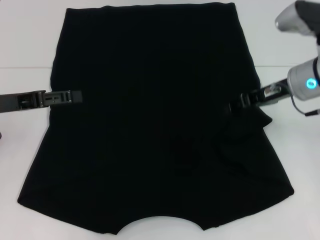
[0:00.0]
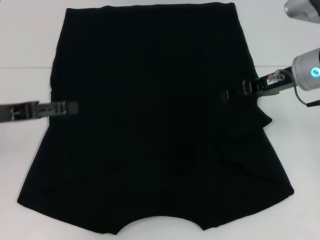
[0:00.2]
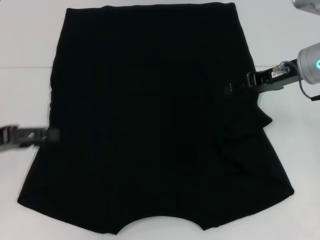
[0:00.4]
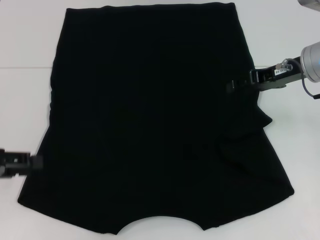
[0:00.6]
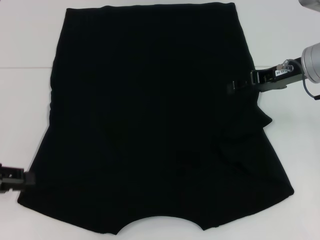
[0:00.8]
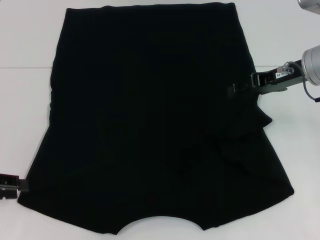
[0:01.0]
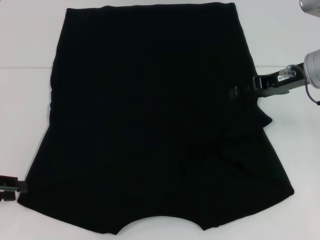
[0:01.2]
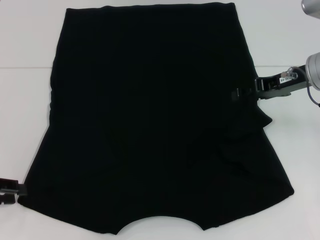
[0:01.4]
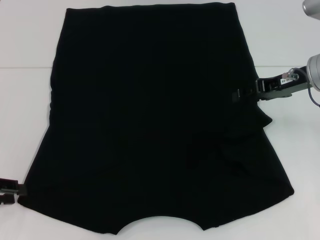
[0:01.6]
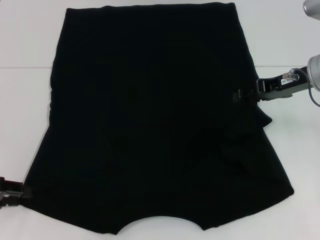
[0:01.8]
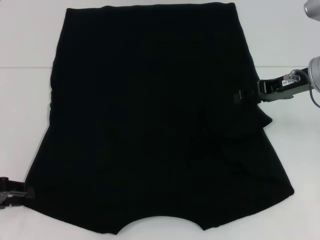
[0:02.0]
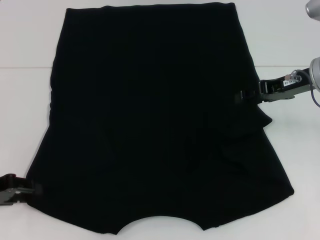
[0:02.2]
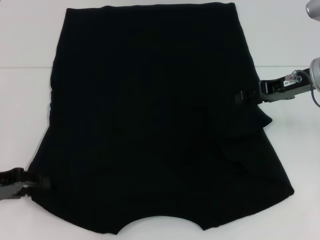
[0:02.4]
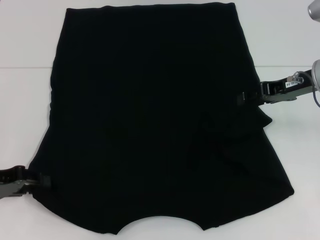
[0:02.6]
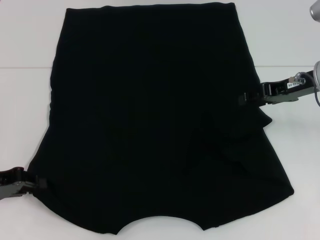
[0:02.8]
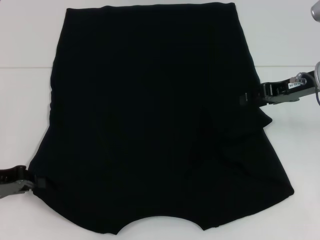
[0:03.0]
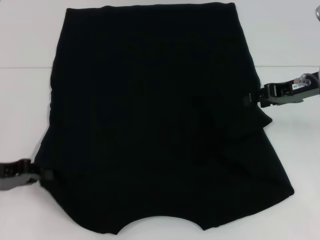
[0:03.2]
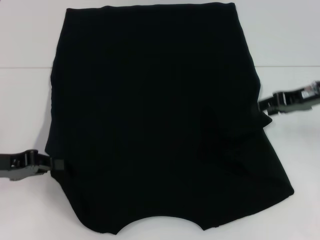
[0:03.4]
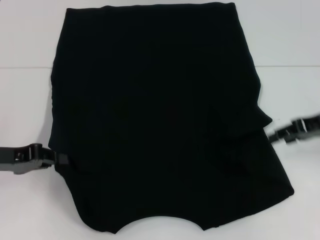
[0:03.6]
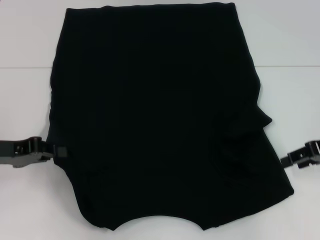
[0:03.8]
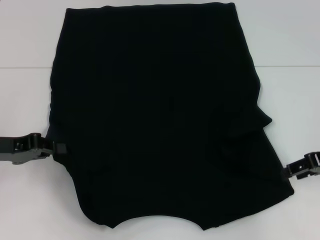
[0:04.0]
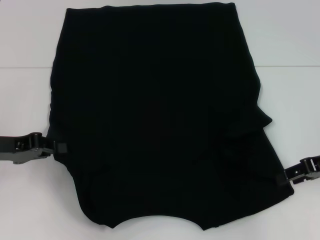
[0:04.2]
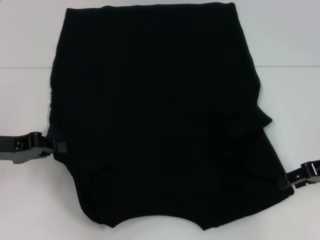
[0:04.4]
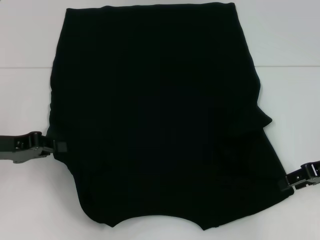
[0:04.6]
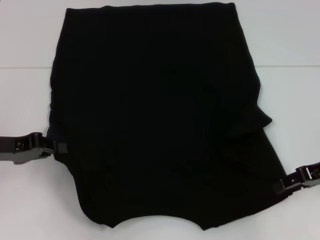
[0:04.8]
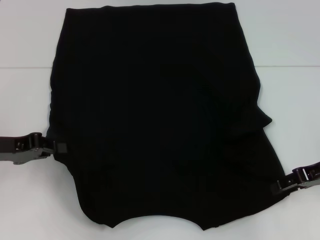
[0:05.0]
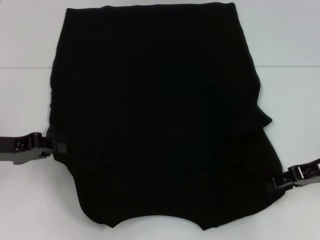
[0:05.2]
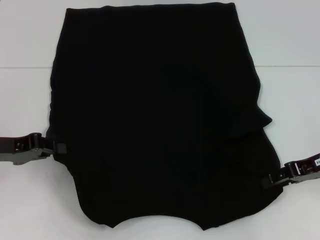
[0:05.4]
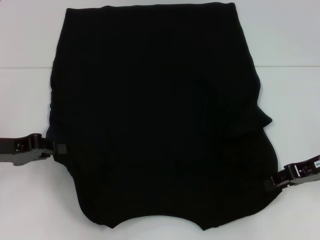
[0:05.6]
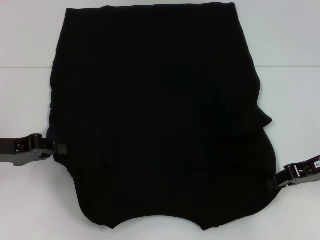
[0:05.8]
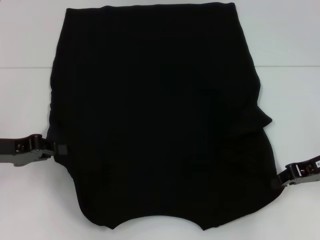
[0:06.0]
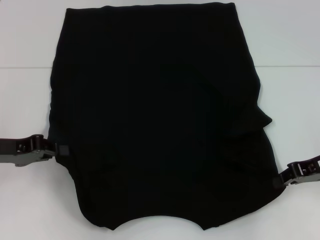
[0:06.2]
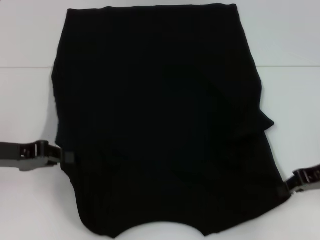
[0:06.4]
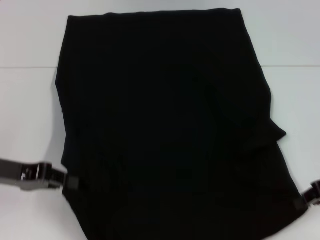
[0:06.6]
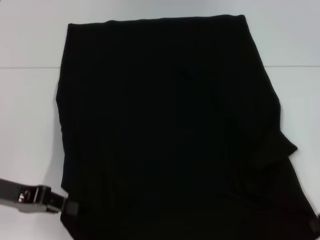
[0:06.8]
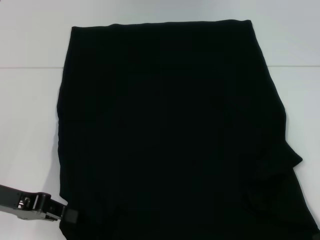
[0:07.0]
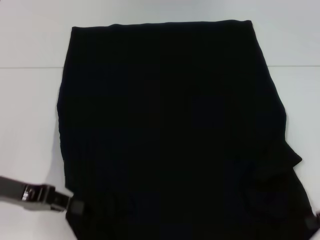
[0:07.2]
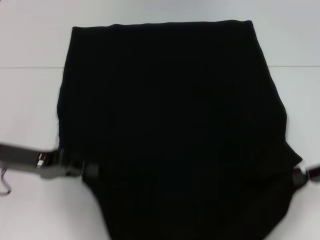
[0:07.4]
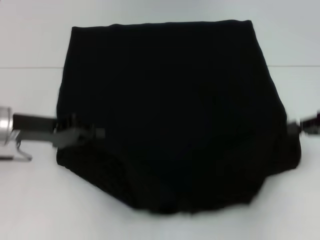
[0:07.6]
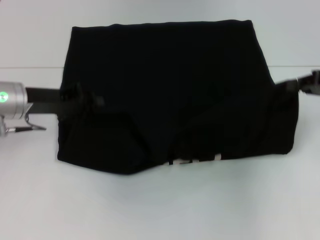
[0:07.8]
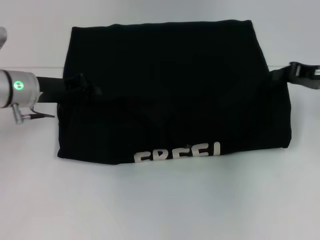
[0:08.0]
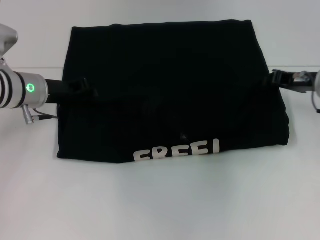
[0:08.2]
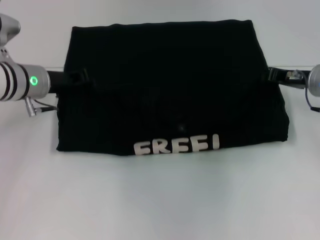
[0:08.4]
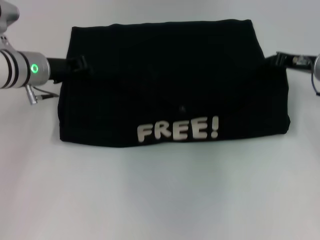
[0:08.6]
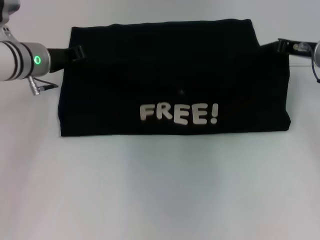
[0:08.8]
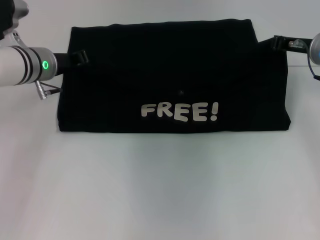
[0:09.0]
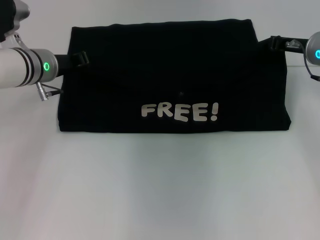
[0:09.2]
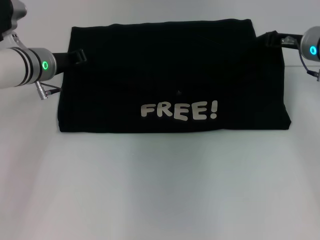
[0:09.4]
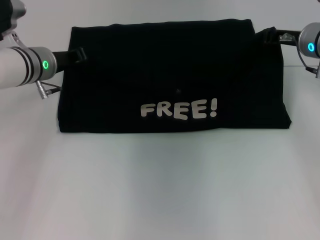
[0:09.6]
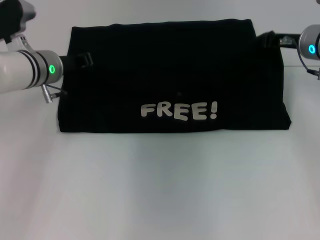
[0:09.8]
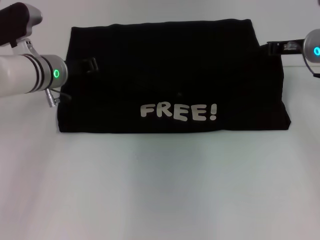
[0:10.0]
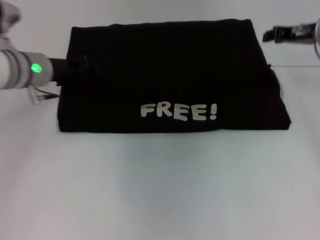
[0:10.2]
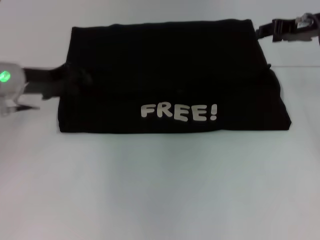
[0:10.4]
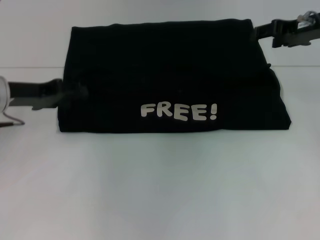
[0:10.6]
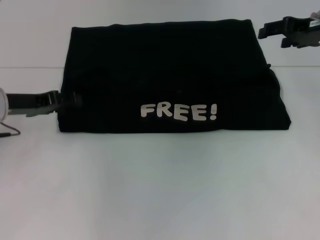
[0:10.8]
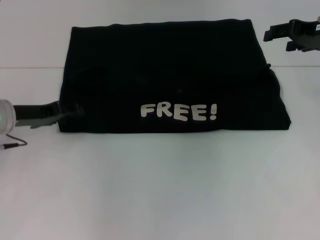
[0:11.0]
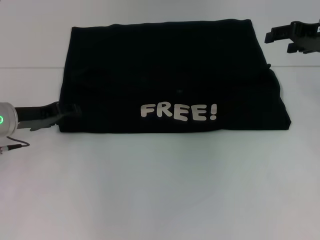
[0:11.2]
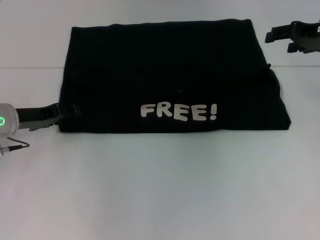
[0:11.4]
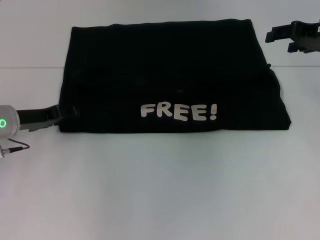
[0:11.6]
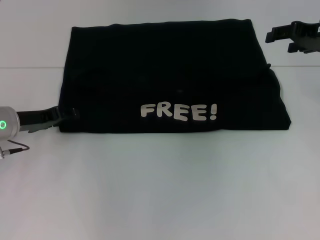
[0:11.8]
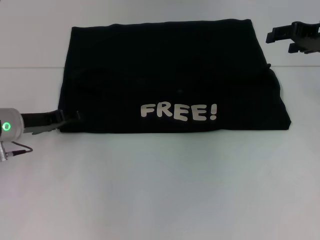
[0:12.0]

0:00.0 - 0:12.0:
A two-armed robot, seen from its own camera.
Step, 0:00.4 - 0:03.2: Grab the bottom left corner with your left hand.
Step, 0:03.4 - 0:06.2: Grab the bottom right corner with your right hand.
Step, 0:06.4 - 0:10.0: Fold the clothes with your left hand.
Step, 0:06.4 - 0:10.0: Fold the clothes with your right hand.
0:00.0 - 0:01.6: The right gripper opens. Meanwhile the left gripper travels backward, to the left and downward by about 10 cm.
0:01.6 - 0:03.0: The grippers stay close to where they were, moving slightly.
0:03.0 - 0:04.4: The right gripper travels backward and to the right by approximately 10 cm.
0:04.4 - 0:06.0: The grippers move only a little.
0:06.0 - 0:07.6: The left gripper moves to the right, some 5 cm, while the right gripper travels backward and back again, approximately 10 cm each way.
0:07.6 - 0:09.0: The right gripper goes approximately 15 cm forward and to the left. The left gripper heads forward and to the right, covering about 10 cm.
0:09.0 - 0:10.4: The right gripper is displaced upward by about 5 cm, and opens up. Meanwhile the left gripper goes roughly 5 cm to the left.
0:10.4 - 0:12.0: The left gripper is displaced downward by roughly 5 cm. The right gripper opens.

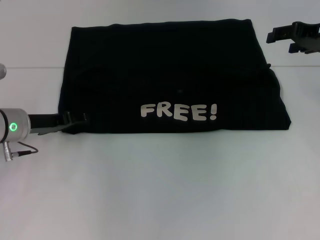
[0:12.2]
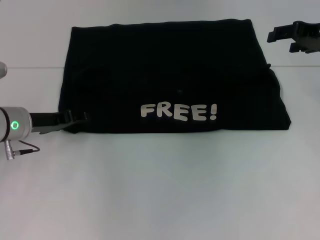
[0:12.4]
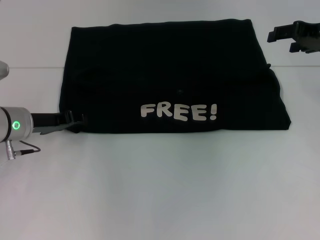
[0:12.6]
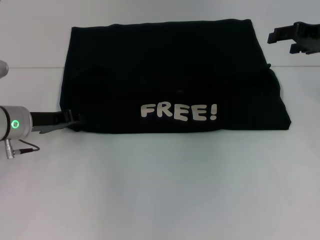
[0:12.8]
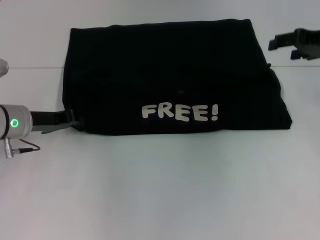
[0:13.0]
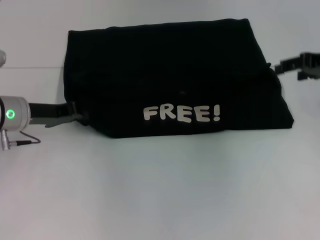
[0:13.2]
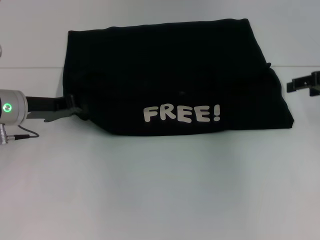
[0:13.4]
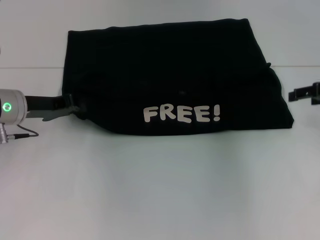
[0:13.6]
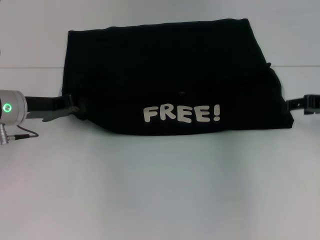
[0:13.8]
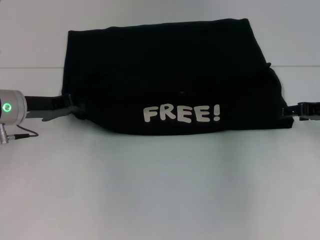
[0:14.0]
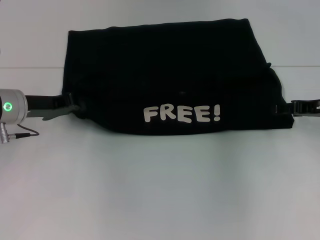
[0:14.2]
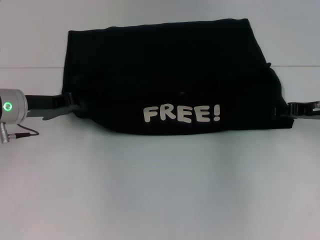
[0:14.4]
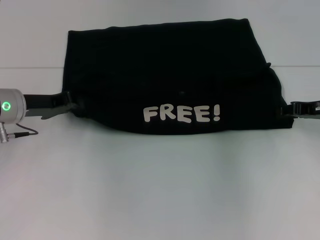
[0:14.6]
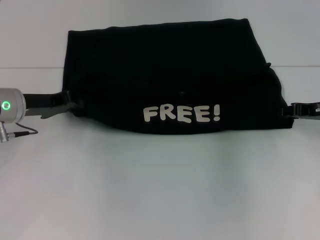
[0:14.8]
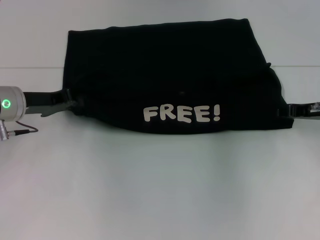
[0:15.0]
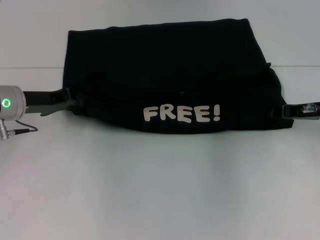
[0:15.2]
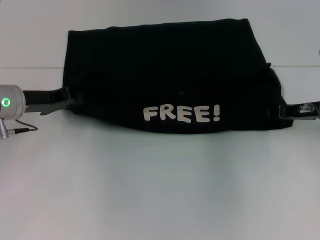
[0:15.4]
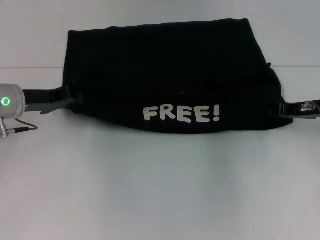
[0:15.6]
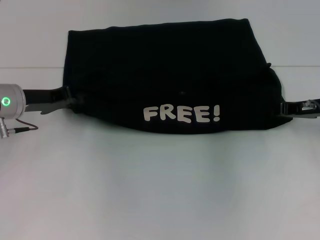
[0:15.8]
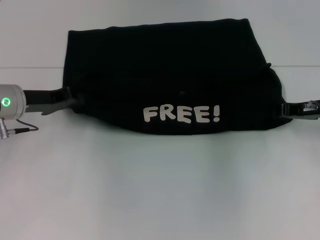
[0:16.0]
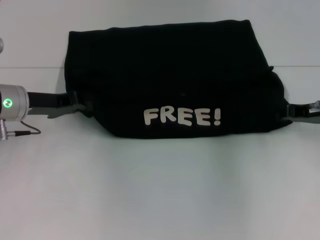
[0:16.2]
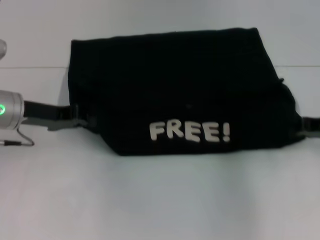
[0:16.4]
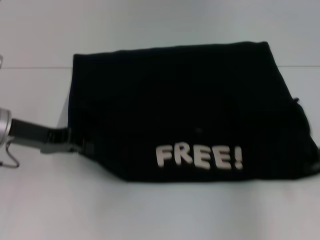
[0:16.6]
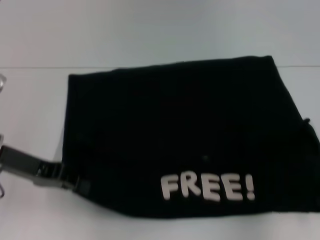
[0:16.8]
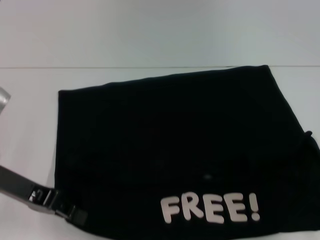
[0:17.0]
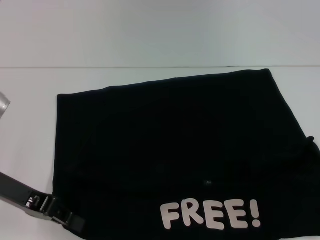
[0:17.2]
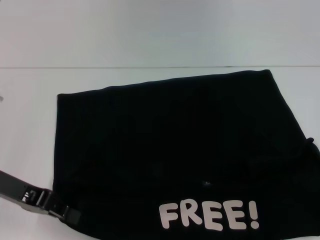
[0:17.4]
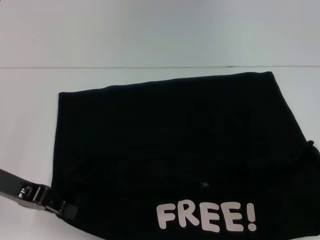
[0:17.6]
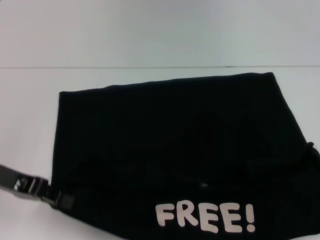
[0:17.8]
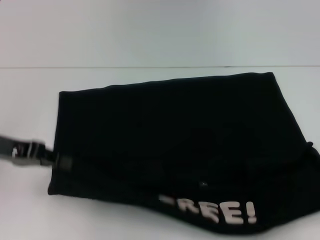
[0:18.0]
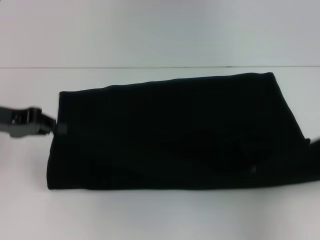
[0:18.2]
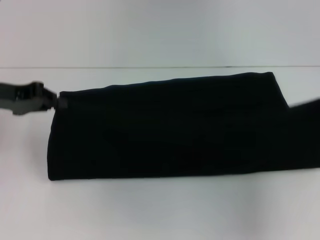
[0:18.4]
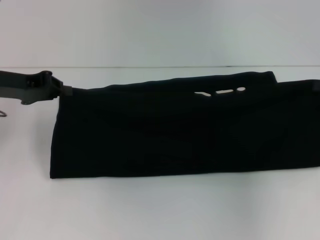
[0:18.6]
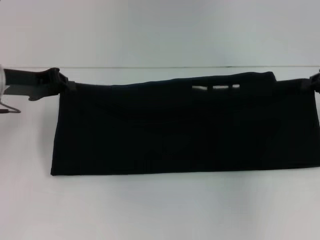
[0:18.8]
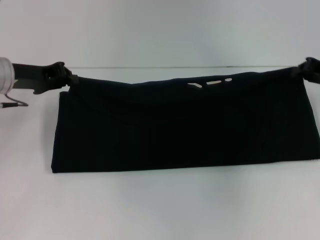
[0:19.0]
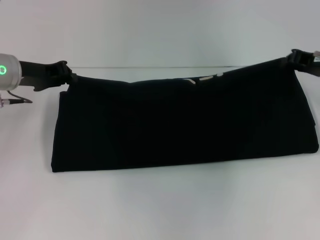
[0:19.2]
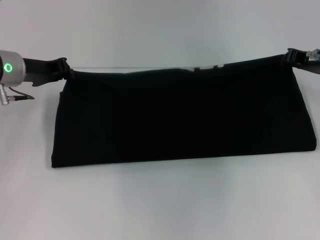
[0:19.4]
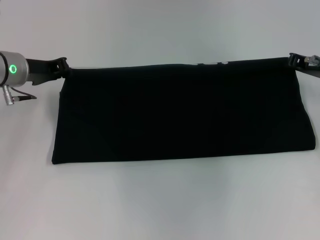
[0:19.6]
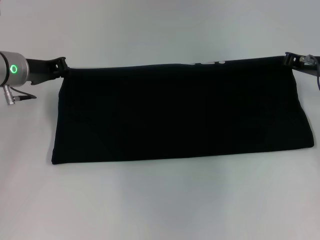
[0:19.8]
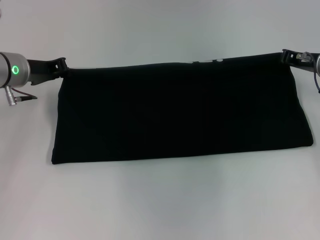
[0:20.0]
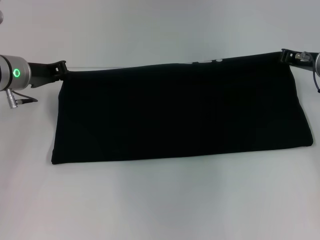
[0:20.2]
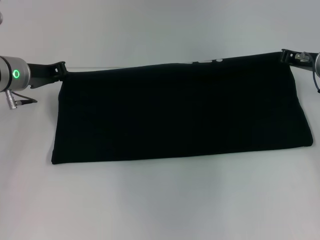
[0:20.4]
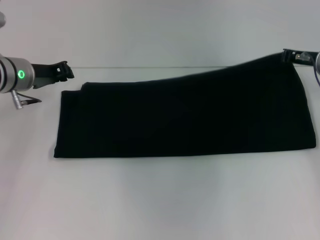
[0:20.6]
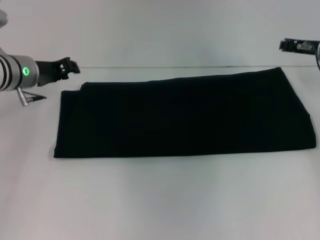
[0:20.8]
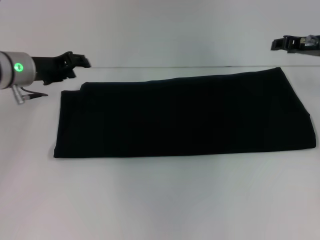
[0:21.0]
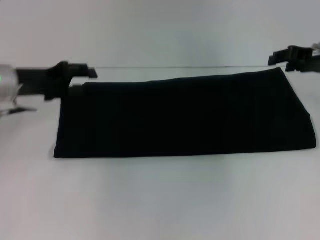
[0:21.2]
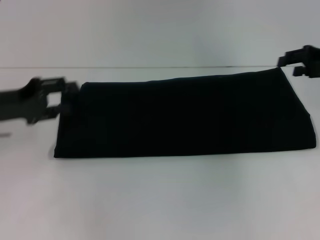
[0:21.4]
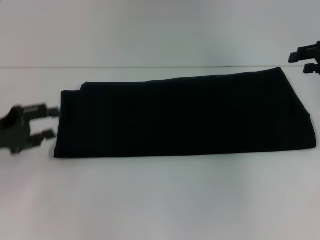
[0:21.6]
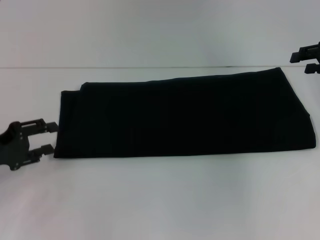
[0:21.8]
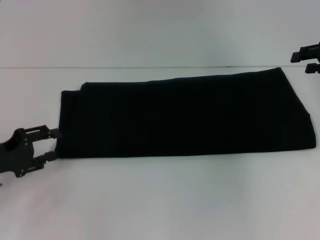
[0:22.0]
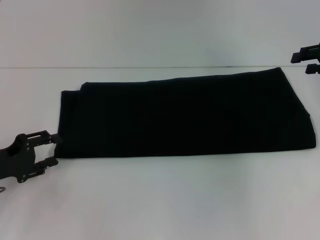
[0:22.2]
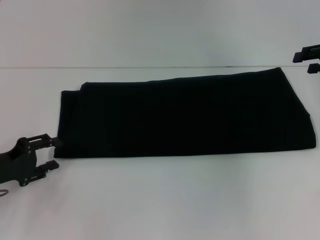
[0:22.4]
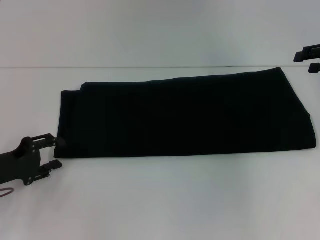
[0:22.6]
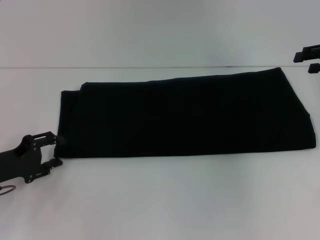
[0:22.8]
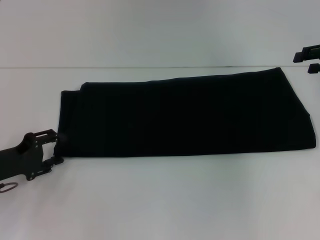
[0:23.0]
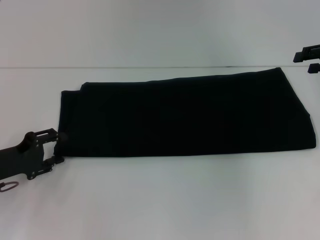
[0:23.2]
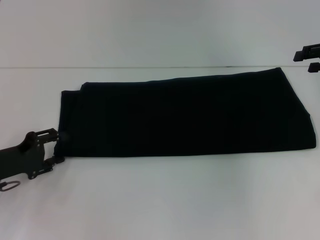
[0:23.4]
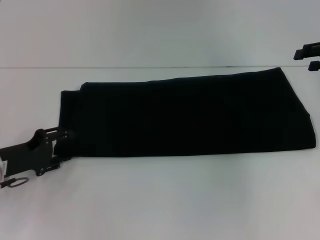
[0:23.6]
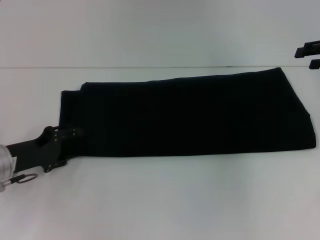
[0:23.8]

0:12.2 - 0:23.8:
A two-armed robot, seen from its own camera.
Step, 0:12.2 - 0:17.2: Pull the clothes with your left hand.
Step, 0:12.2 - 0:17.2: Pull the clothes with your right hand.
Step, 0:17.4 - 0:21.0: Fold the clothes with your right hand.
0:12.2 - 0:13.6: The right gripper goes roughly 5 cm downward. Meanwhile the left gripper closes up.
0:13.6 - 0:15.0: The right gripper goes about 5 cm downward, and closes its fingers.
0:15.0 - 0:16.6: The left gripper changes place by some 5 cm. The right gripper goes some 5 cm backward, and closes.
0:16.6 - 0:18.0: The left gripper changes place by some 5 cm. The right gripper travels backward by some 5 cm.
0:18.0 - 0:19.4: The left gripper heads forward, covering roughly 10 cm. Meanwhile the right gripper is displaced forward and to the left by approximately 20 cm.
0:19.4 - 0:21.0: The left gripper opens its fingers, while the right gripper opens up.
0:21.0 - 0:22.4: The left gripper goes some 20 cm backward, downward and to the left. The right gripper heads to the right, covering approximately 5 cm.
0:22.4 - 0:23.8: The grippers move only a little.
